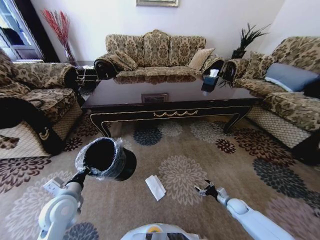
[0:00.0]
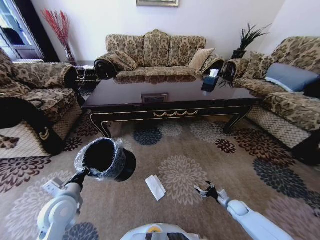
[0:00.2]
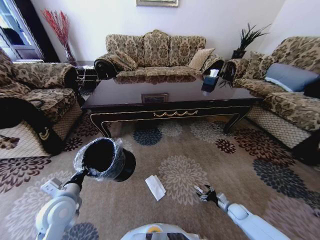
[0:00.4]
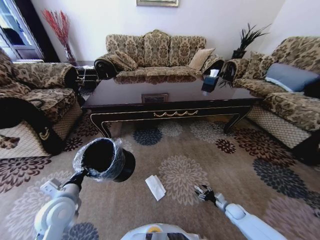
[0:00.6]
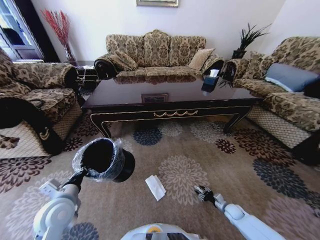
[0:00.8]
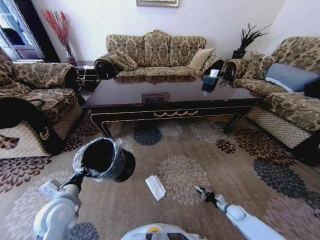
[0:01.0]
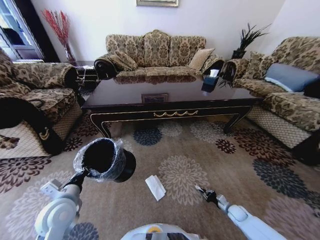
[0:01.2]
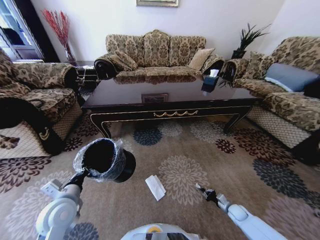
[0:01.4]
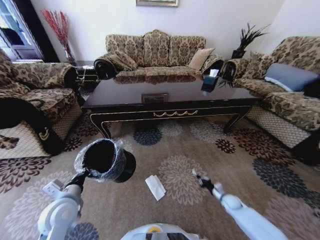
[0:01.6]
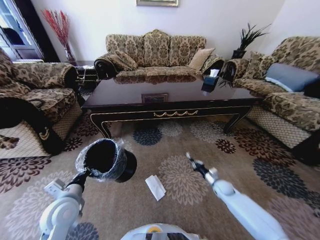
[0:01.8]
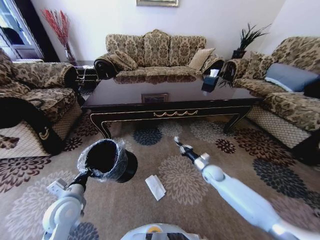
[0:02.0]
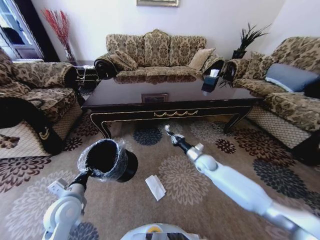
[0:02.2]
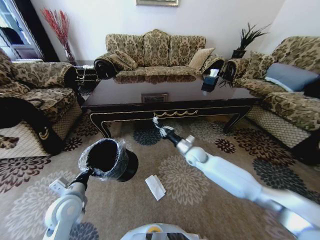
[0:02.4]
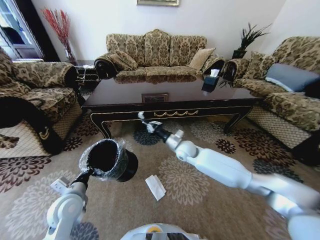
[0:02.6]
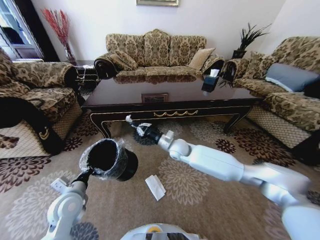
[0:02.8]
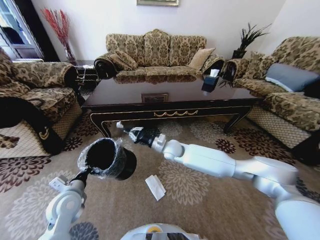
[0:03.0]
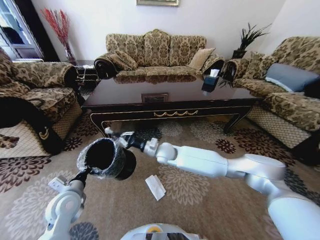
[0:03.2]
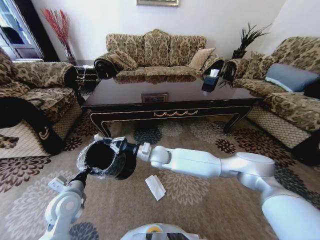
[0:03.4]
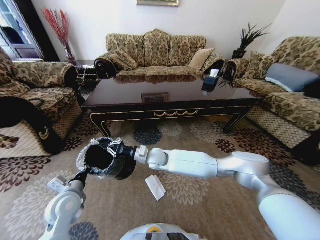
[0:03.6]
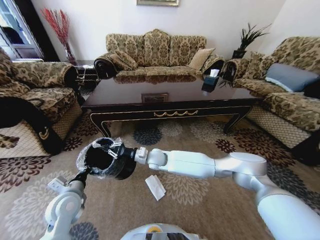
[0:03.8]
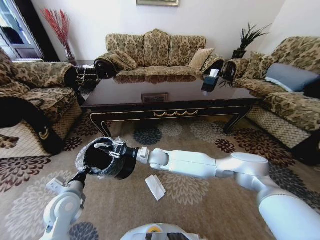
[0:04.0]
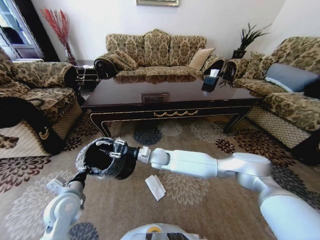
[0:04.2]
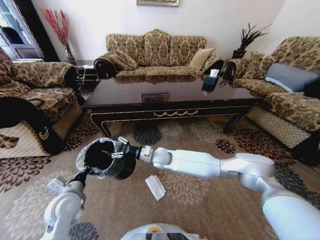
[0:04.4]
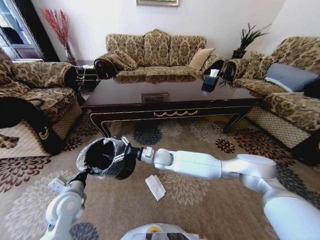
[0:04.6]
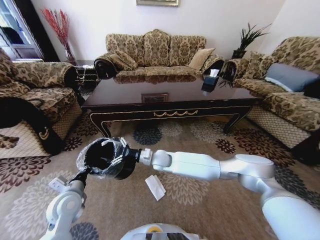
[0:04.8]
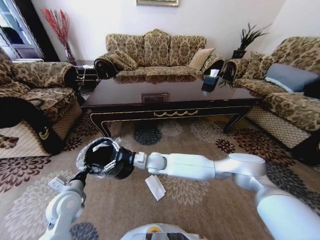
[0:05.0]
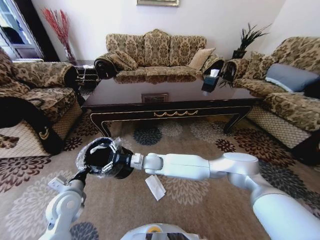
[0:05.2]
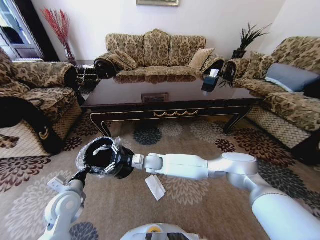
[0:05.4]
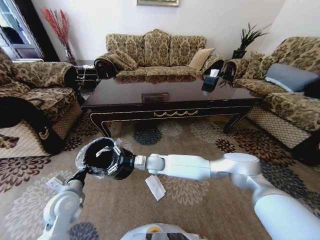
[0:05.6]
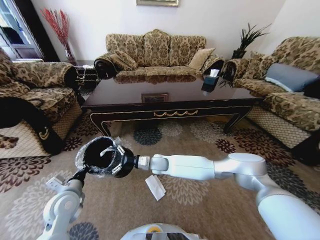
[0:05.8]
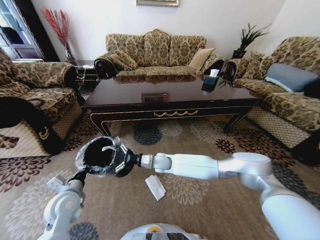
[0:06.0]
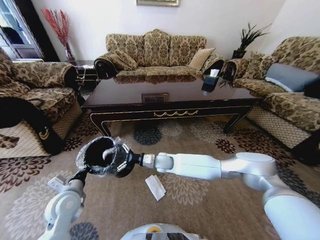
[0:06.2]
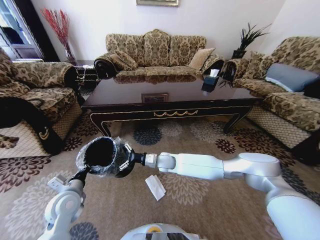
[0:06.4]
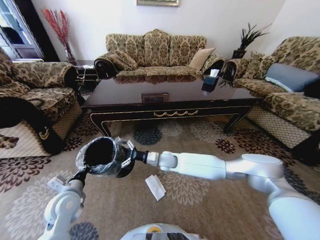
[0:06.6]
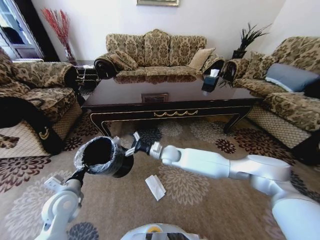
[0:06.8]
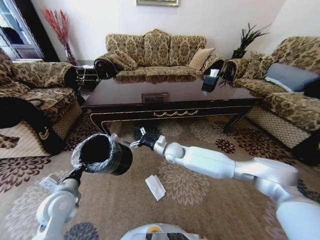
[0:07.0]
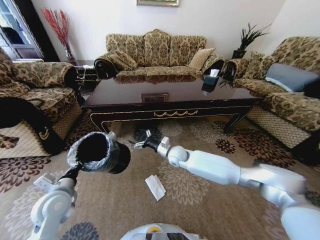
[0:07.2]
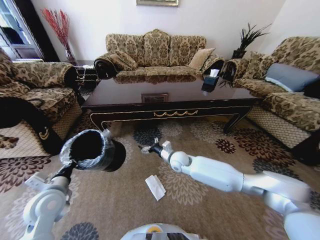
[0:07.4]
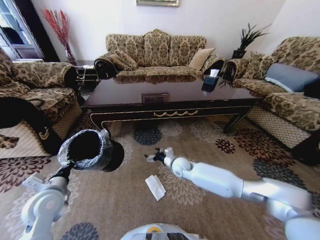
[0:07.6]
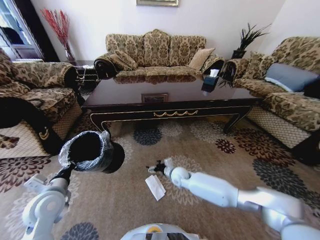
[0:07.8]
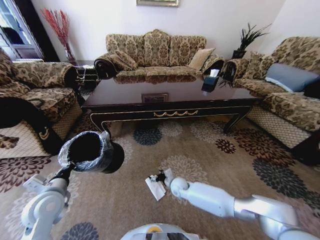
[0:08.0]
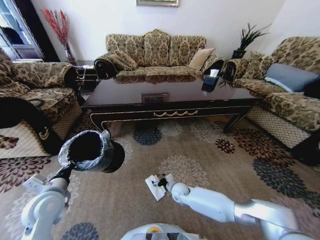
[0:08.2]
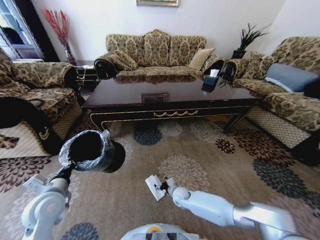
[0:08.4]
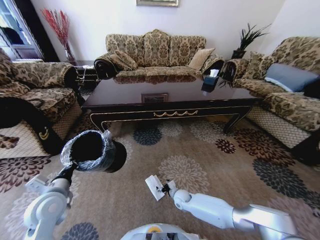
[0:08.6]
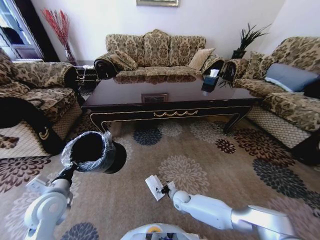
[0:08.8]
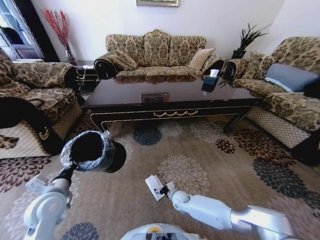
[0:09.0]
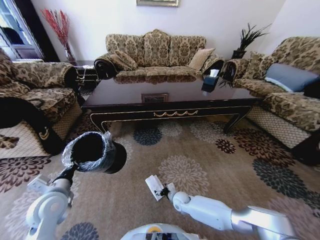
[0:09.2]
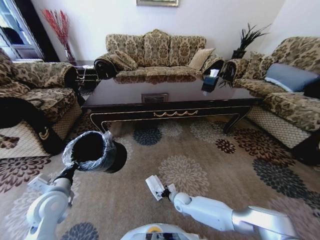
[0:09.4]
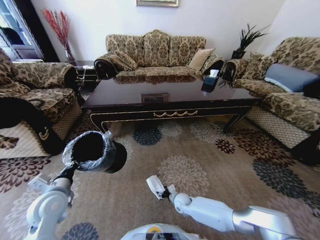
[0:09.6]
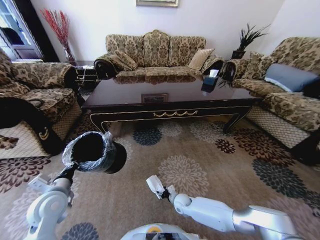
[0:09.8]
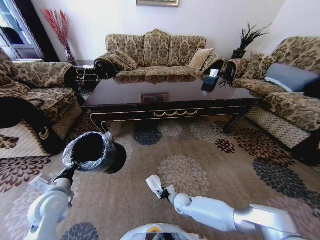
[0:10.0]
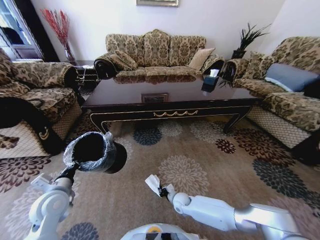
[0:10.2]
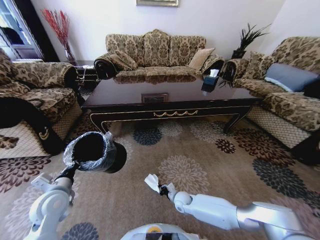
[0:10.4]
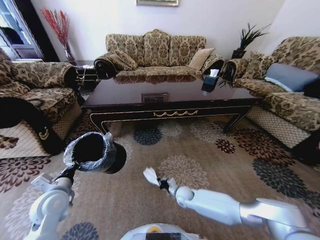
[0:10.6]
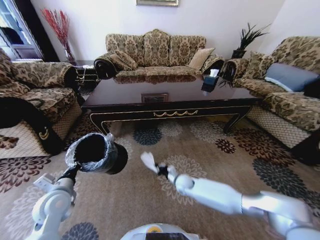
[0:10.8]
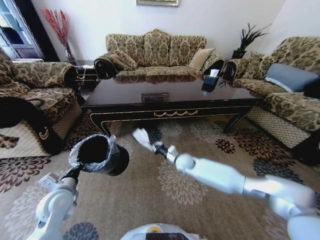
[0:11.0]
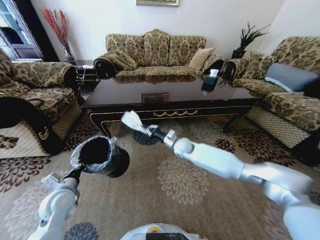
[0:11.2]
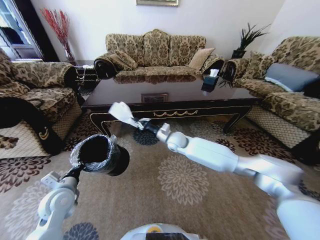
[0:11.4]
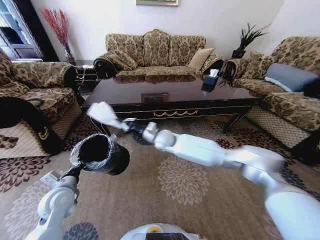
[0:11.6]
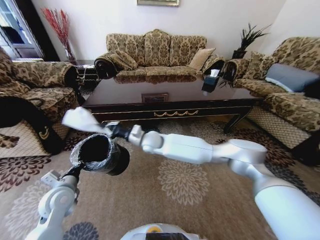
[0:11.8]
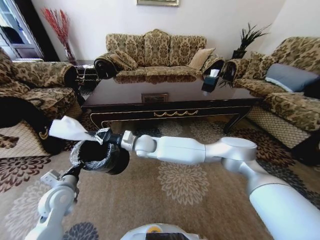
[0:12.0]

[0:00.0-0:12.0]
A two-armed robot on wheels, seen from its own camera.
Task of the whole recording: Move to the front of the table and pick up the trash from the floor, then place it into the trash bin.
0:00.0 to 0:01.6: The right gripper closes.
0:01.6 to 0:03.0: The right gripper heads to the left, upward and forward, covering some 50 cm.
0:03.0 to 0:04.4: The right gripper moves to the left, approximately 5 cm, and opens its fingers.
0:04.4 to 0:06.0: The grippers stay close to where they were, moving slightly.
0:06.0 to 0:07.6: The left gripper changes place by about 5 cm. Meanwhile the right gripper heads to the right, covering approximately 10 cm.
0:07.6 to 0:09.0: The right gripper heads downward and backward, covering approximately 20 cm.
0:09.0 to 0:10.4: The right gripper closes up.
0:10.4 to 0:12.0: The right gripper travels upward, to the left and forward by approximately 40 cm.

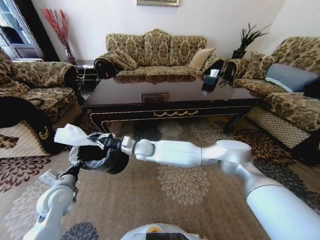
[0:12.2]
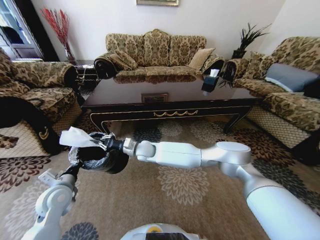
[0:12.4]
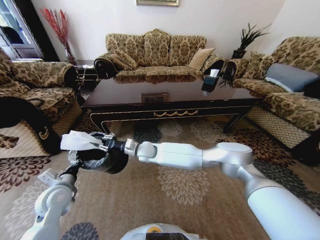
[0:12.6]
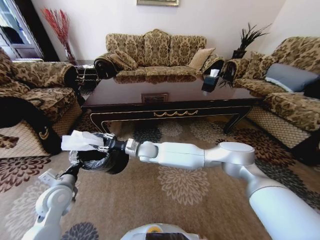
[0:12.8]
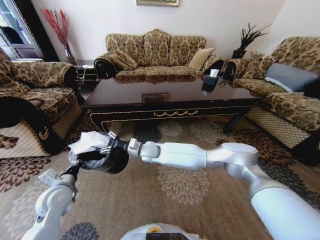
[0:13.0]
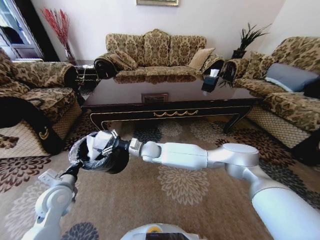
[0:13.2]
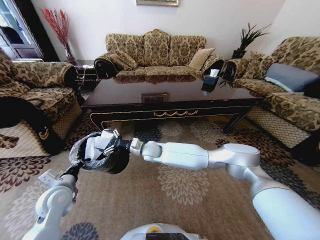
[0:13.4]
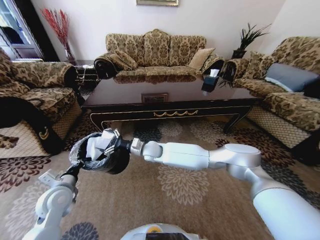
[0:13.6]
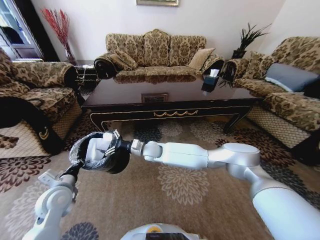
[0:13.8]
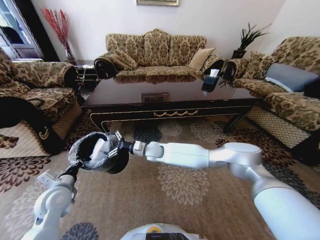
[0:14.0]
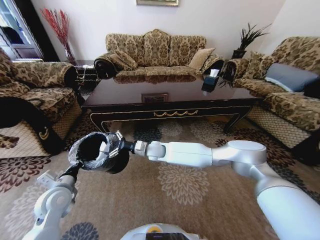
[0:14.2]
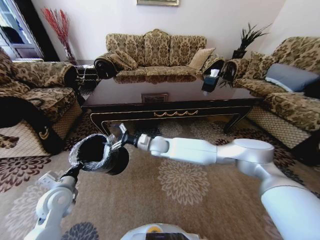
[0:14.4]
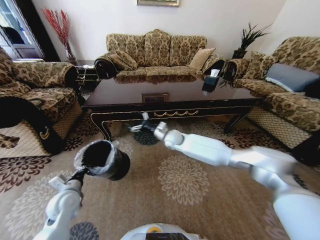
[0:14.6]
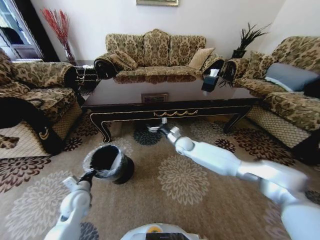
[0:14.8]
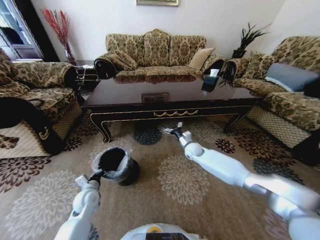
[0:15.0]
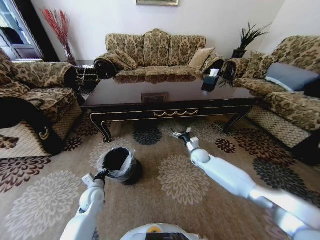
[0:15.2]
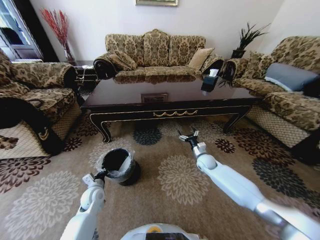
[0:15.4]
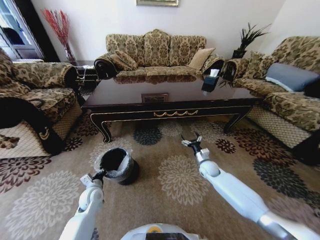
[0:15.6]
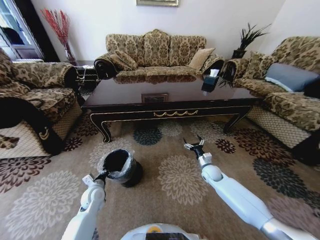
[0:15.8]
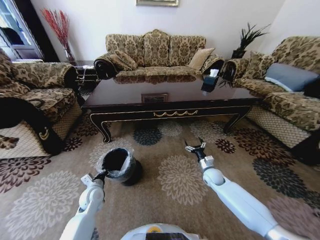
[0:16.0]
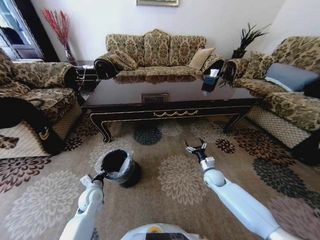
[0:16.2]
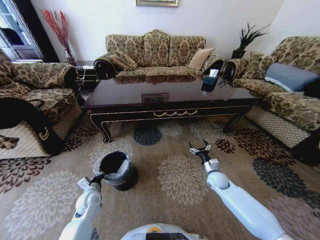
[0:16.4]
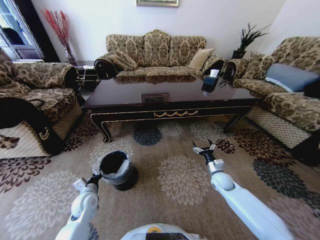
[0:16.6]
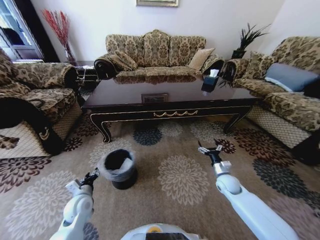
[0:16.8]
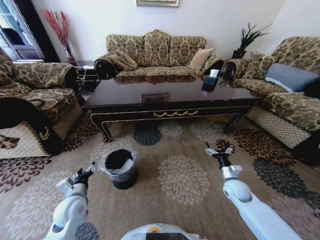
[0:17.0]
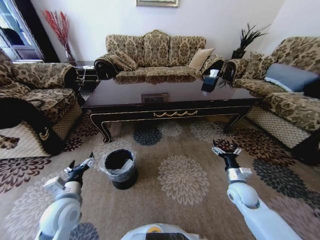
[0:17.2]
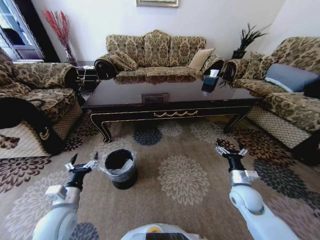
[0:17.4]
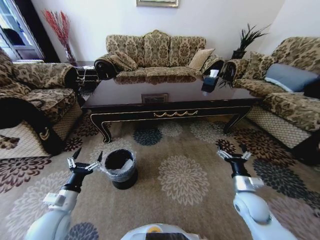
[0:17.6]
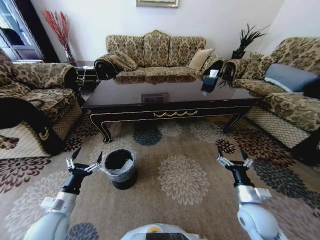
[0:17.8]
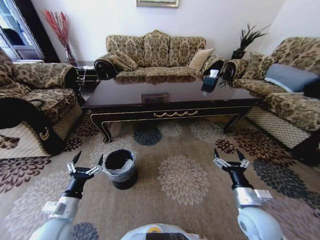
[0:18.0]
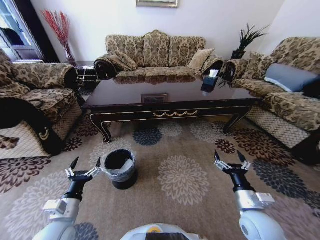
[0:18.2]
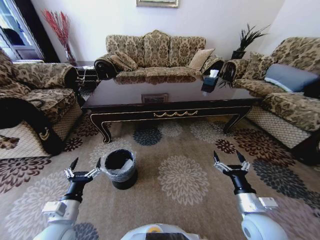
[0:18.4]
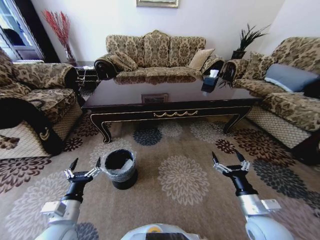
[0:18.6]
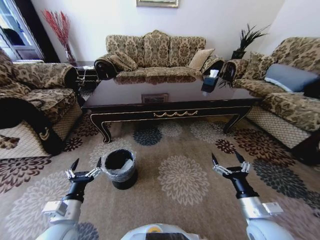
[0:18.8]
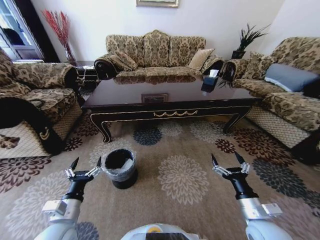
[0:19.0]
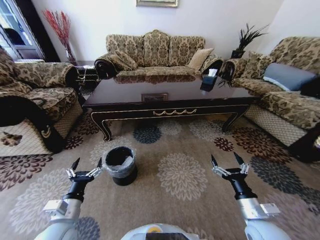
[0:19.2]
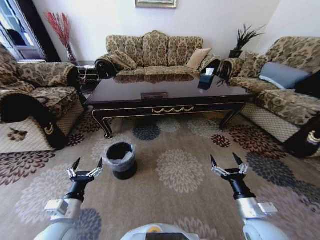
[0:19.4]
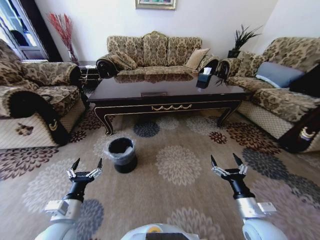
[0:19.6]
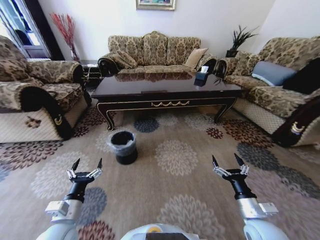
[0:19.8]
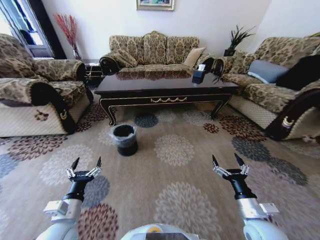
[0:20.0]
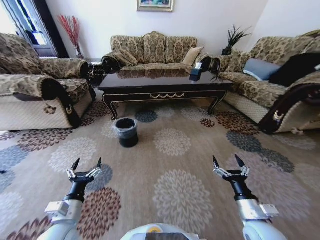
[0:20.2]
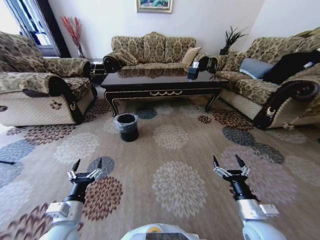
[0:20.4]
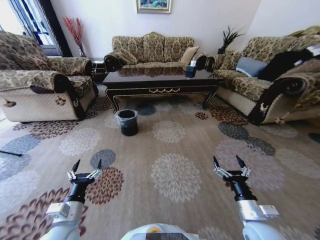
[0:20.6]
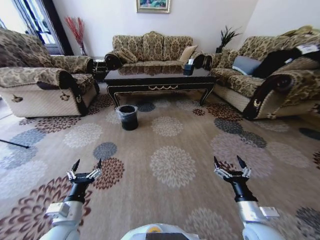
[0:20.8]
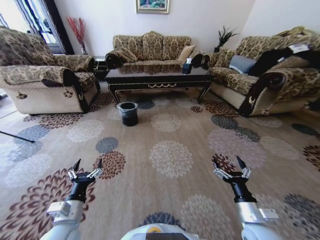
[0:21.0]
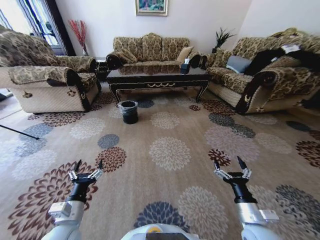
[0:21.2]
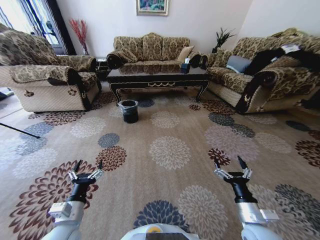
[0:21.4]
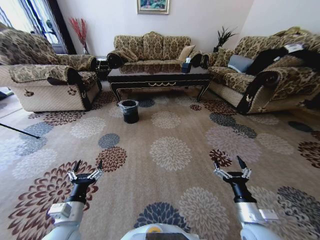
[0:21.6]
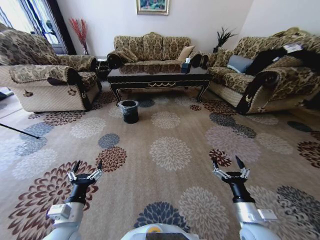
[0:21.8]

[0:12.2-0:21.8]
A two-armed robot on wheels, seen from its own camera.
Task of the whole recording: Move to the front of the table and pick up the trash from the floor, then place it into the trash bin.
0:12.2 to 0:13.8: The right gripper opens its fingers.
0:13.8 to 0:15.4: The left gripper goes roughly 15 cm downward and to the right. Meanwhile the right gripper goes approximately 30 cm to the right.
0:15.4 to 0:17.0: The right gripper heads backward and to the right, covering approximately 15 cm, while the left gripper goes approximately 10 cm upward and backward, and opens its fingers.
0:17.0 to 0:18.6: The right gripper shifts some 15 cm backward and upward. The left gripper moves backward, approximately 10 cm.
